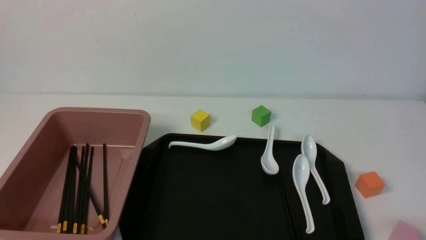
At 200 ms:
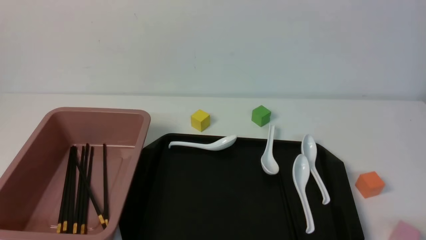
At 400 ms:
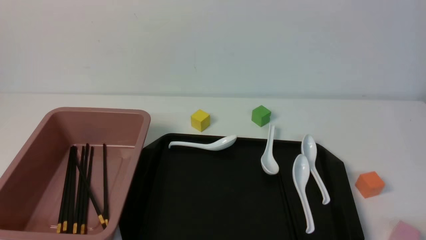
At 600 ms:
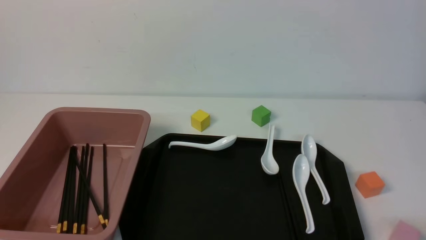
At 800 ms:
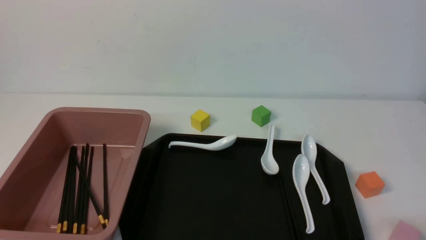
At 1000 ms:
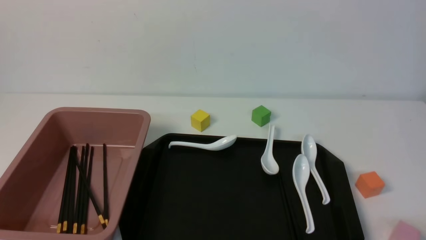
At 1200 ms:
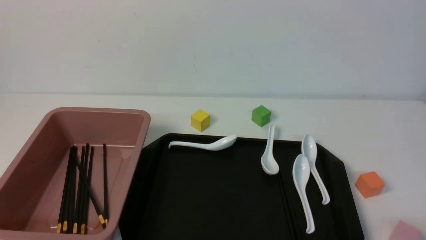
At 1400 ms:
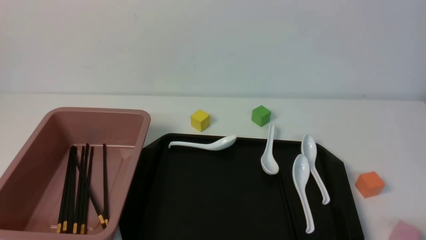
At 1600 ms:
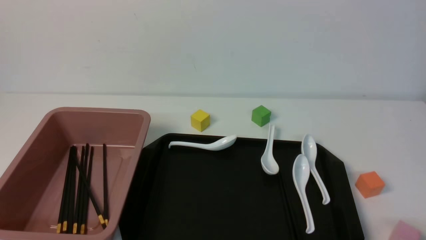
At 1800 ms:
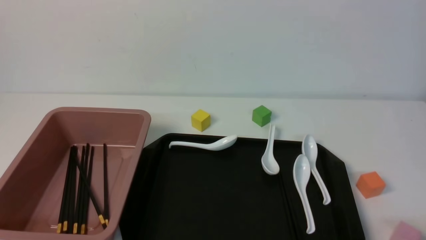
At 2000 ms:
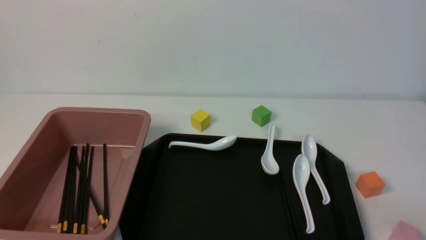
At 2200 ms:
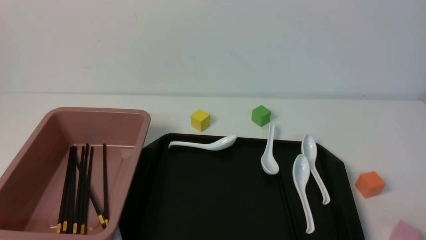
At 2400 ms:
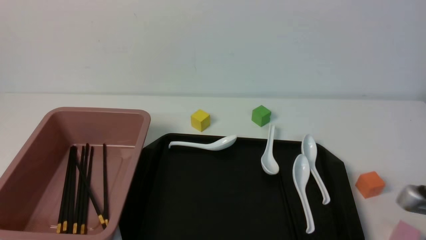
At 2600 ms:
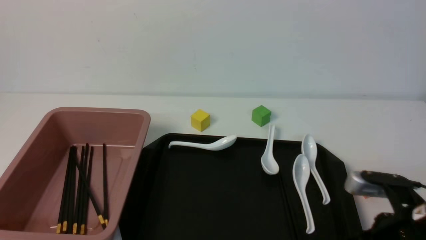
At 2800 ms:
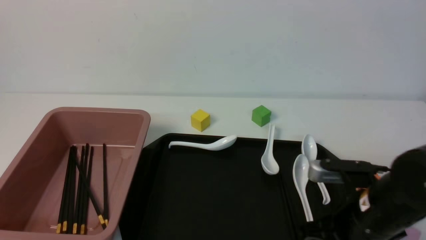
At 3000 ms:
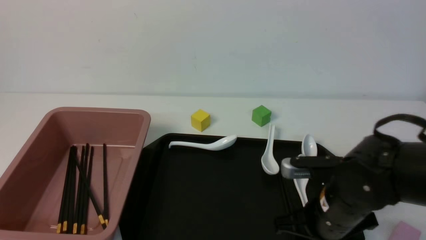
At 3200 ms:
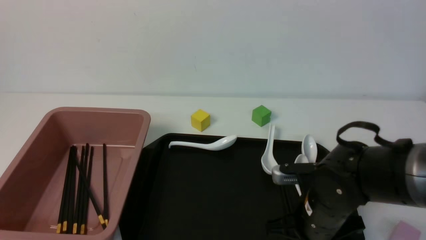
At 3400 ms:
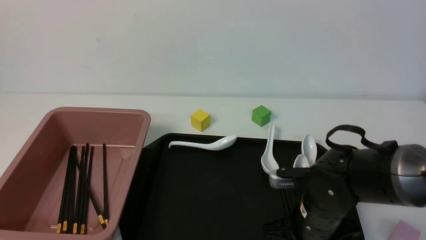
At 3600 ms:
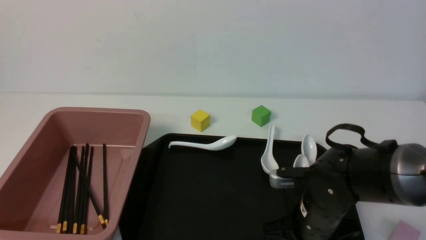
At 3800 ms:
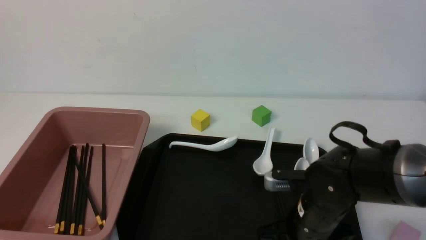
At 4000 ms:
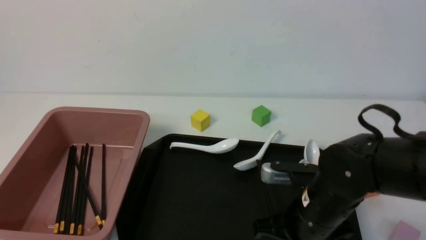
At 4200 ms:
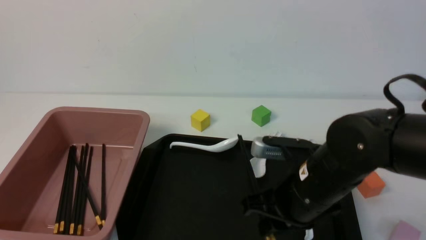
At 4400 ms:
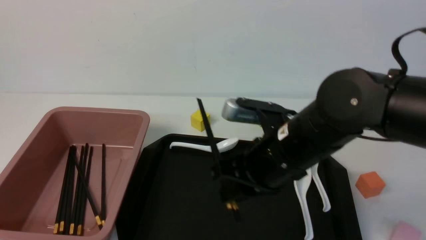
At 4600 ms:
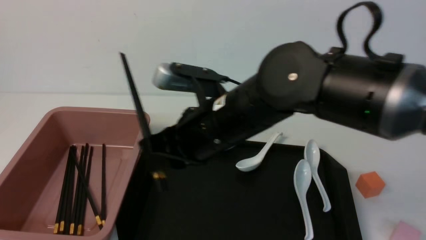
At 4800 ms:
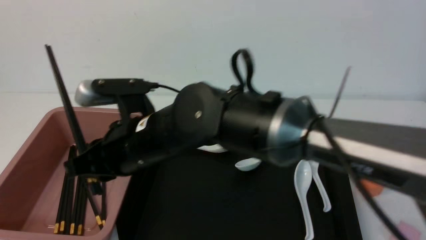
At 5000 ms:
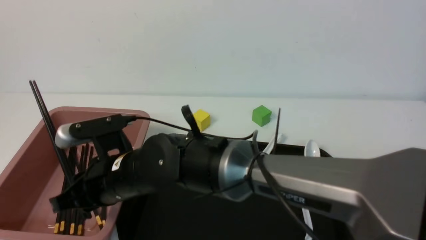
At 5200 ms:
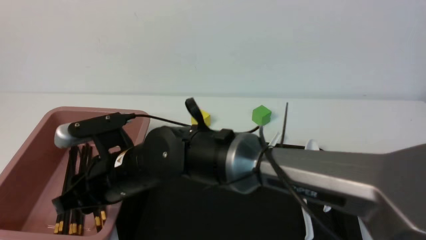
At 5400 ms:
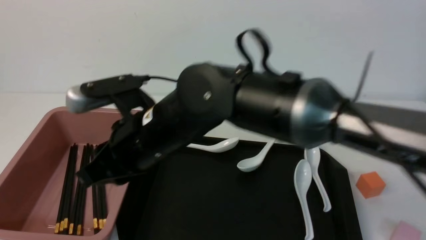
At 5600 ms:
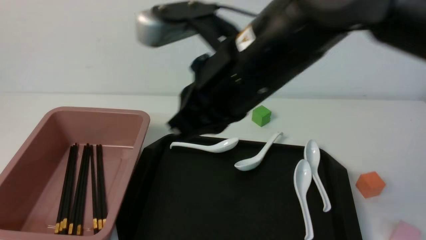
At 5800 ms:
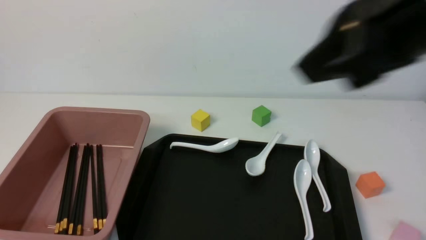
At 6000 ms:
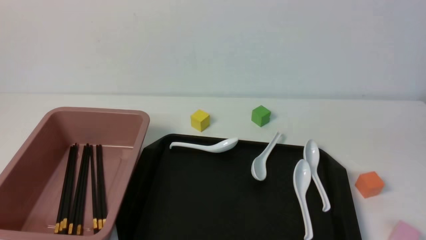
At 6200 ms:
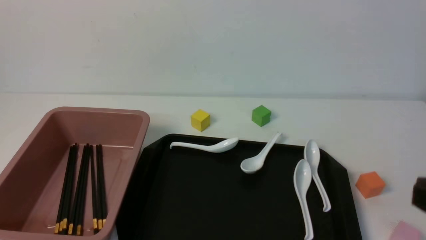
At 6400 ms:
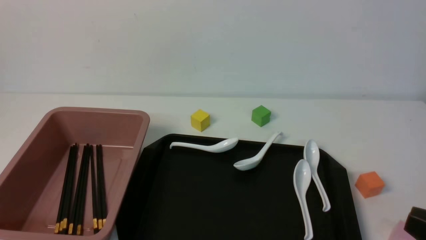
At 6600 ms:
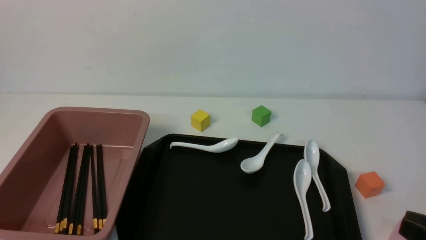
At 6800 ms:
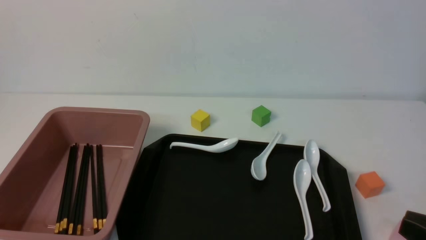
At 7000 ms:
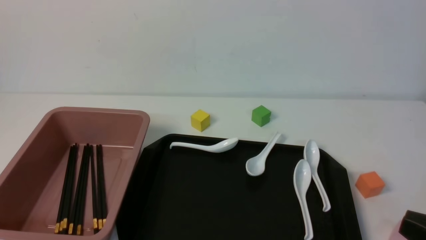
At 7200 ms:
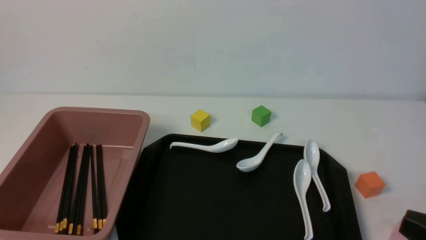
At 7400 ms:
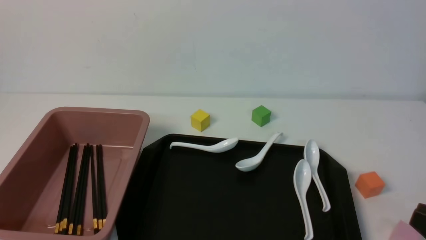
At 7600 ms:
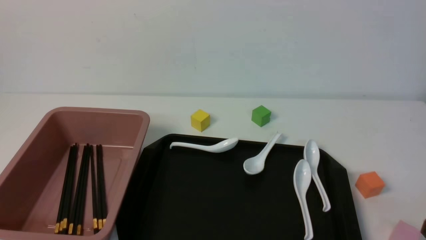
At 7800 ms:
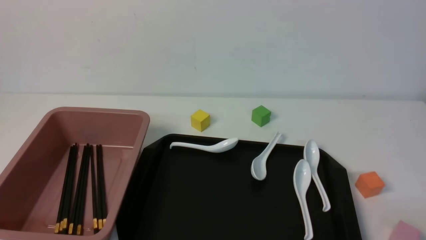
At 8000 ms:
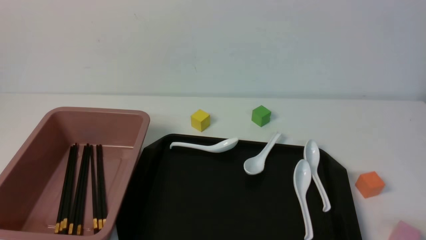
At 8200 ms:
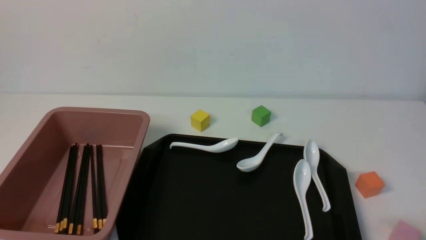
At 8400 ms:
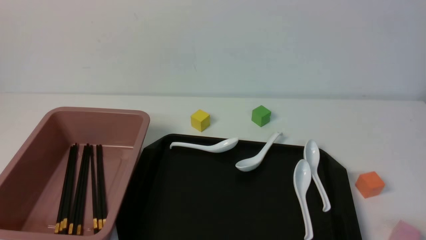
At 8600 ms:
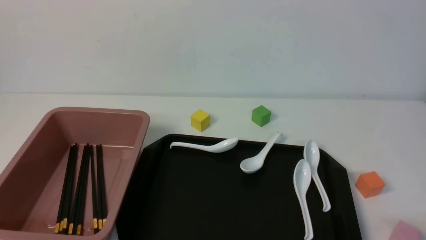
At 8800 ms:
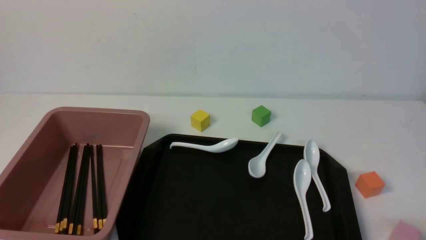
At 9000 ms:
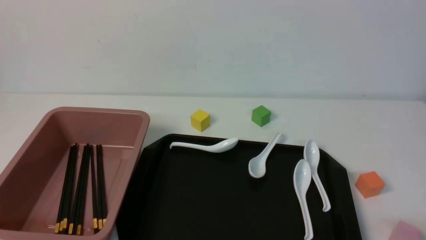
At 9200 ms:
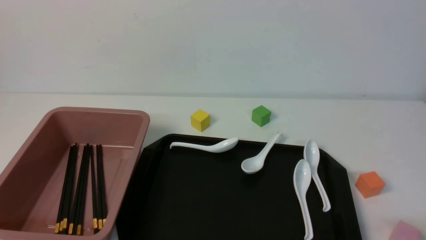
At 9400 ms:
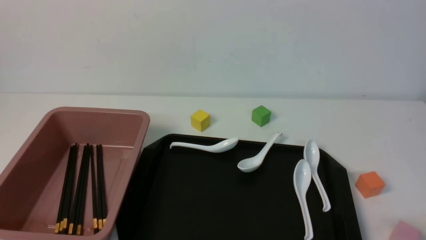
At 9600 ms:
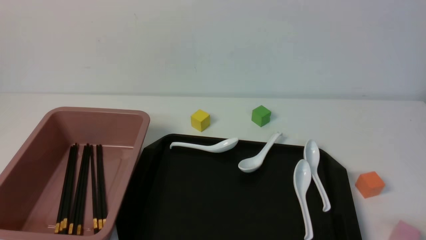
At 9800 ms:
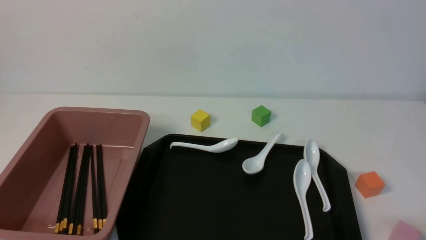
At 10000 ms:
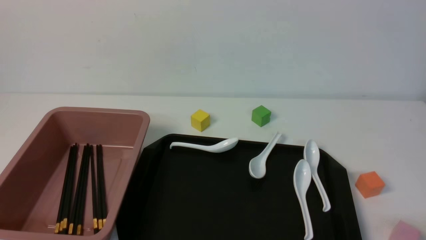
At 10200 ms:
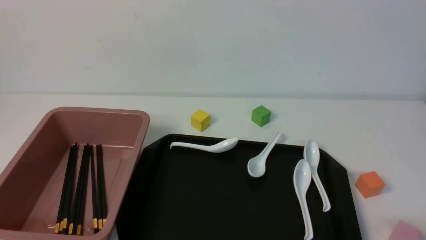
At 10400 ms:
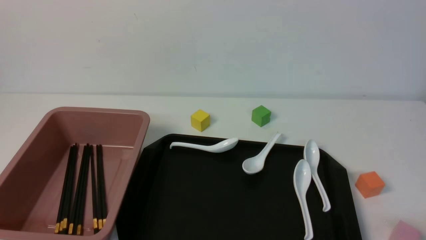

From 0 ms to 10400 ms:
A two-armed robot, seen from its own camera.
Step, from 0 ms to 4200 ms: use the right arm to grab a pair of chopsticks.
Step, from 4400 ms to 5600 ms: use the right arm to put the chopsticks into the lunch box.
From 1400 ms to 3000 ms: The right gripper goes roughly 25 cm forward and to the left, and opens up.
From 3000 ms to 4400 ms: The right gripper travels to the left and upward by roughly 15 cm, and closes up.
From 4400 ms to 6000 ms: The right gripper is displaced upward, backward and to the right by about 30 cm, and closes its fingers.
From 6000 ms to 7400 ms: The right gripper is displaced downward by some 15 cm.
From 7400 ms to 9000 ms: The right gripper goes approximately 10 cm downward.
From 9000 ms to 10400 ms: Neither gripper changes place.
